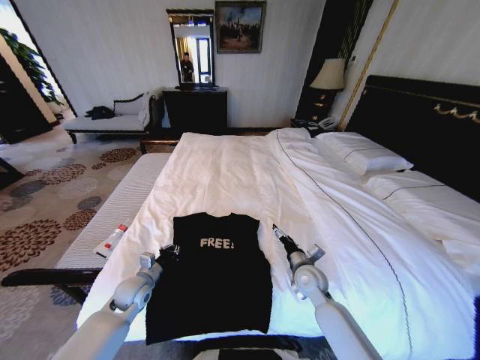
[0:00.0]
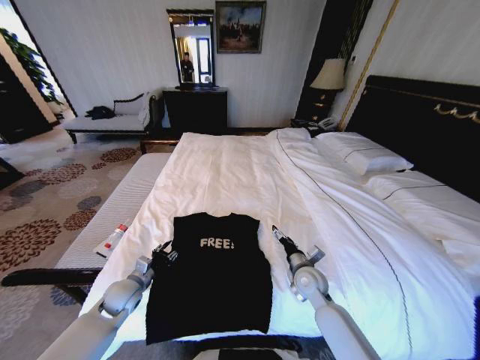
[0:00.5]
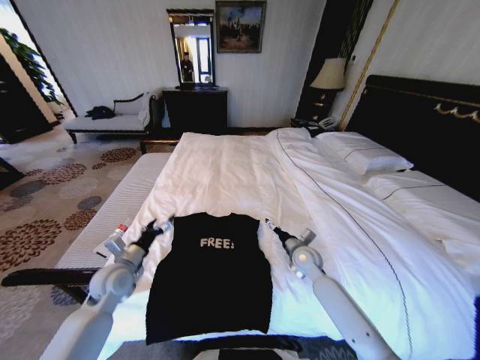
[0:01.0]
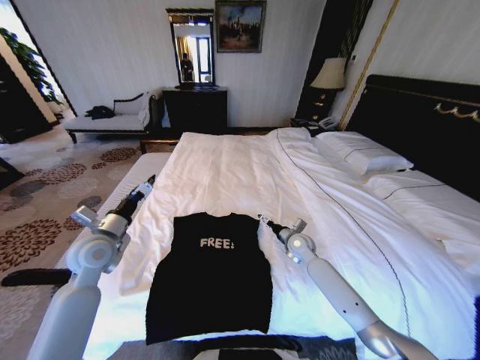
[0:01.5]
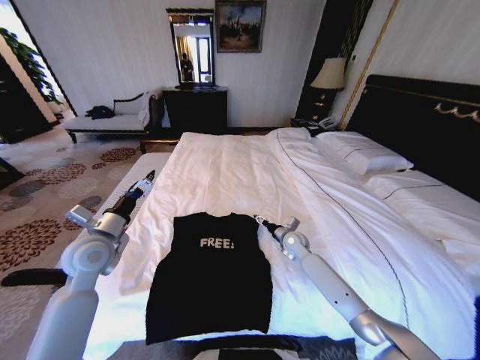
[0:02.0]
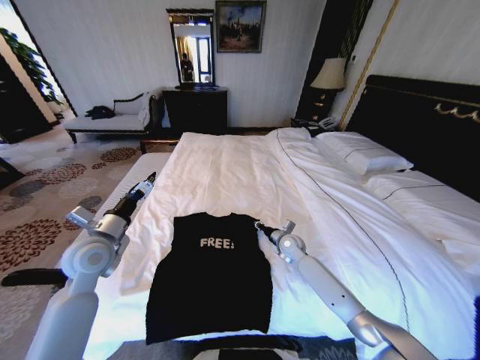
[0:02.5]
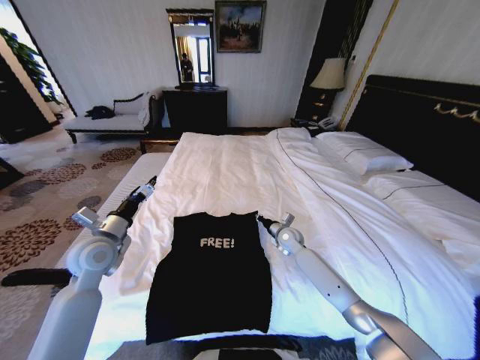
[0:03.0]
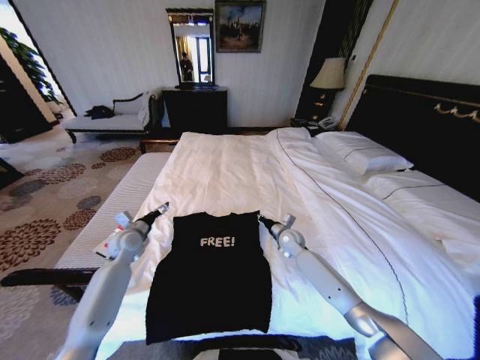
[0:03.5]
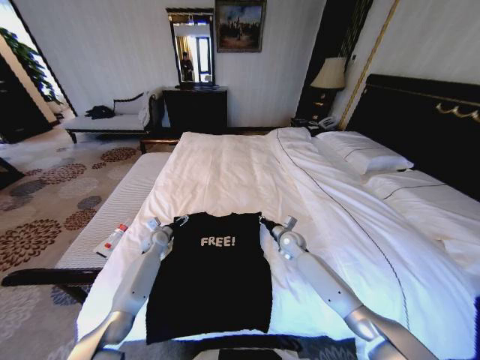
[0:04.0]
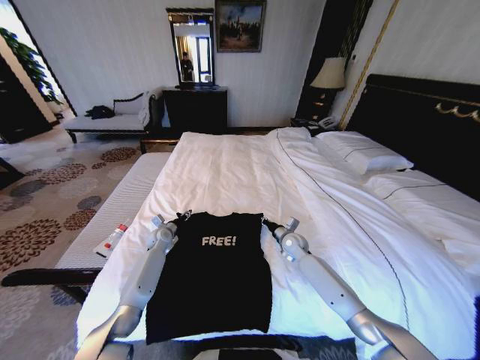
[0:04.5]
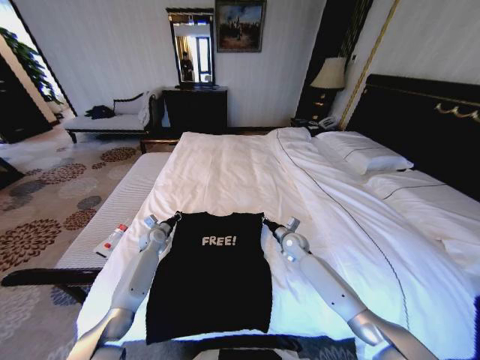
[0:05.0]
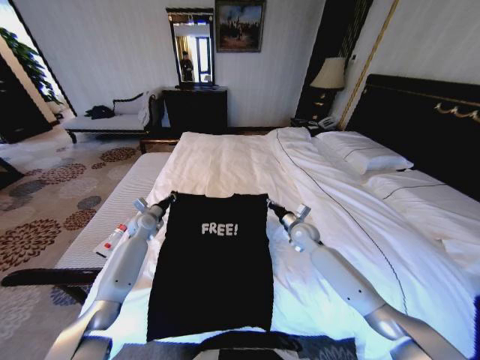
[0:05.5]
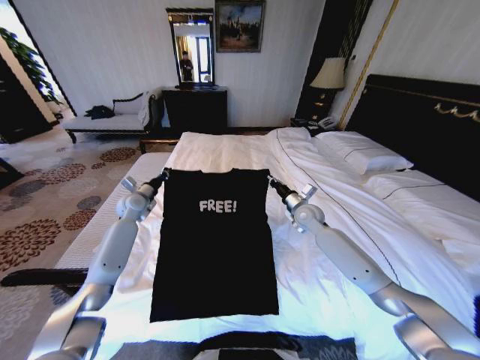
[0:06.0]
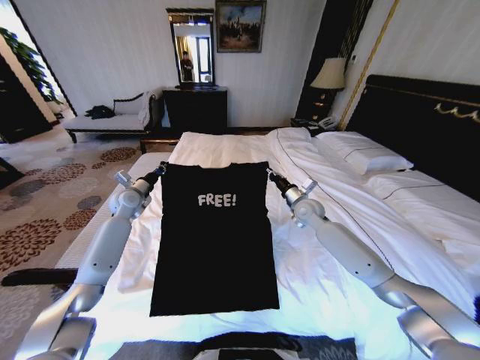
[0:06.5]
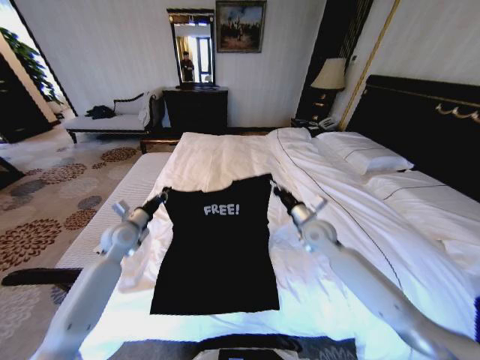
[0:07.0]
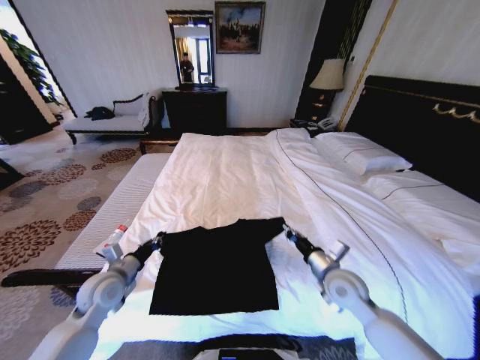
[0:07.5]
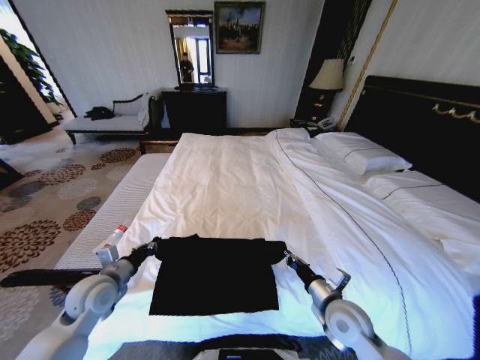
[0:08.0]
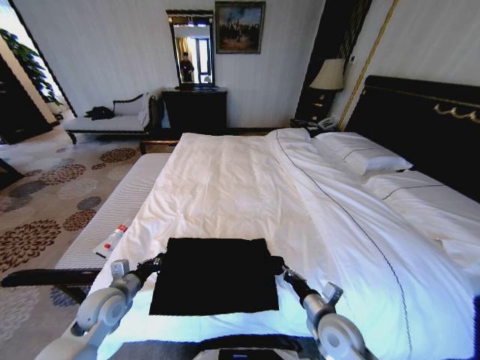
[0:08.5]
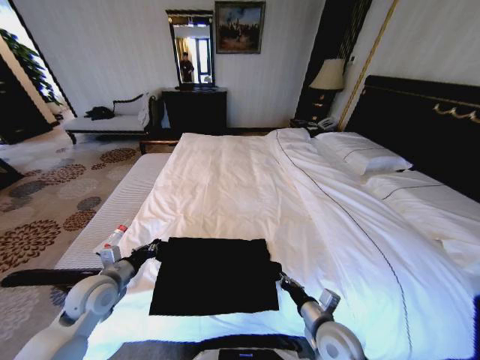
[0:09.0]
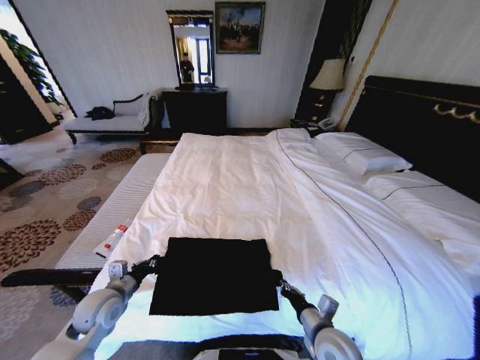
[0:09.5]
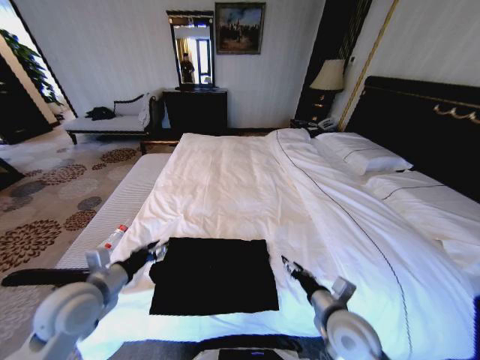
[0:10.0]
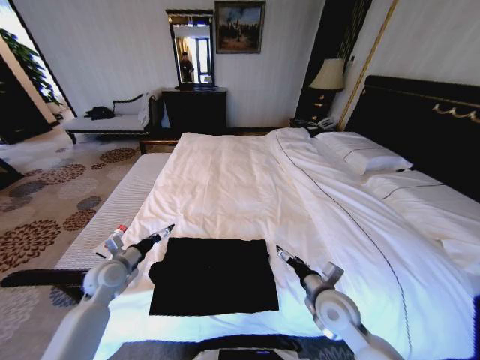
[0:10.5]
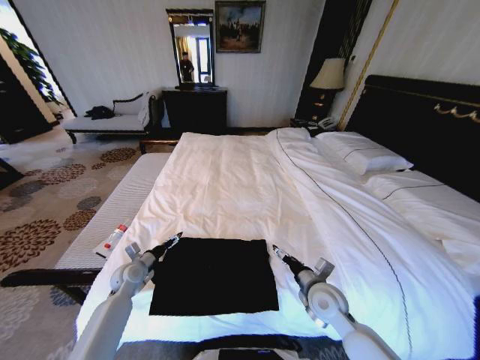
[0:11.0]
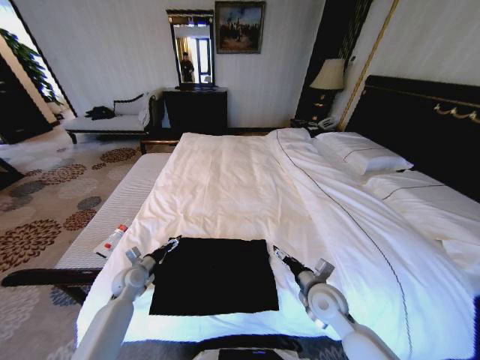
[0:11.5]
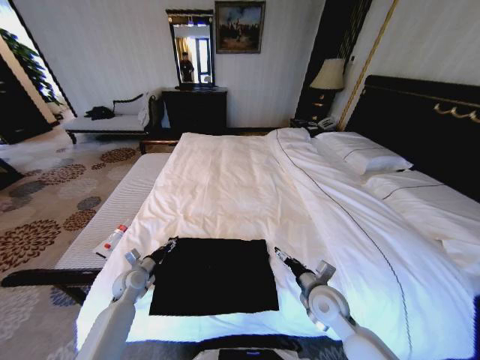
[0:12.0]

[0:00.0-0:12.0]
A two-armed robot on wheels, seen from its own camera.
Task of the whole recording: Fold the clothes on the bed.
0:00.0 to 0:02.0: The right gripper is displaced forward by approximately 15 cm. The left gripper is displaced upward by roughly 20 cm, and opens its fingers.
0:02.0 to 0:04.0: The left gripper shifts approximately 25 cm downward and forward, while the right gripper closes up.
0:04.0 to 0:06.0: The two grippers go approximately 15 cm upward. The left gripper closes.
0:06.0 to 0:08.0: Both grippers move backward, about 30 cm.
0:08.0 to 0:10.0: The right gripper opens up. The left gripper goes up and down, some 10 cm each way, reversing 3 times, and opens up.
0:10.0 to 0:12.0: The left gripper travels downward and forward by roughly 25 cm, and opens, then closes again, while the right gripper shifts some 5 cm forward, and opens its fingers.

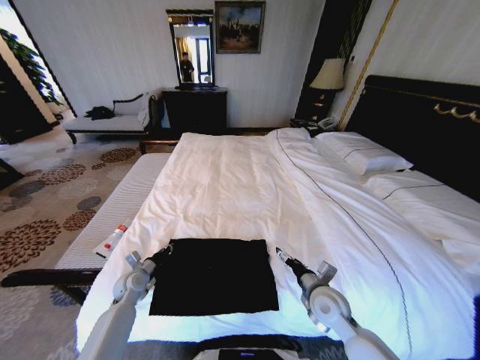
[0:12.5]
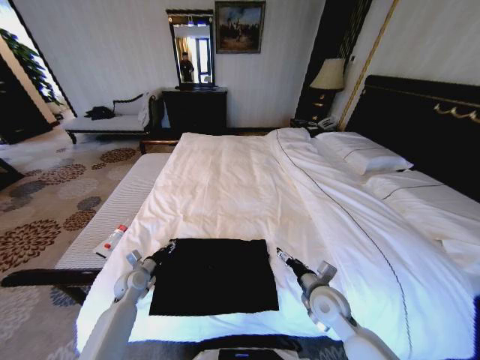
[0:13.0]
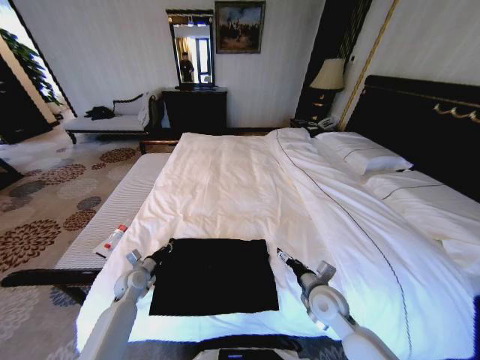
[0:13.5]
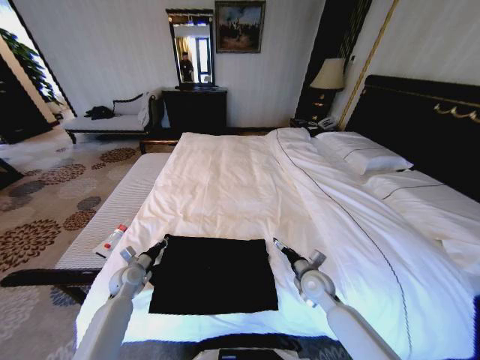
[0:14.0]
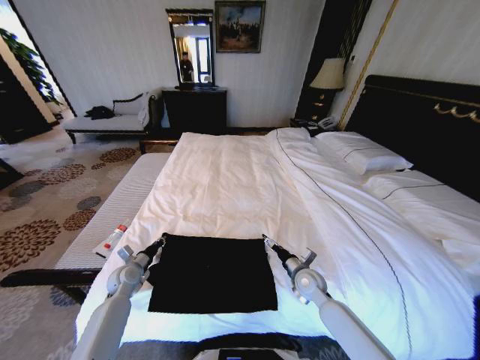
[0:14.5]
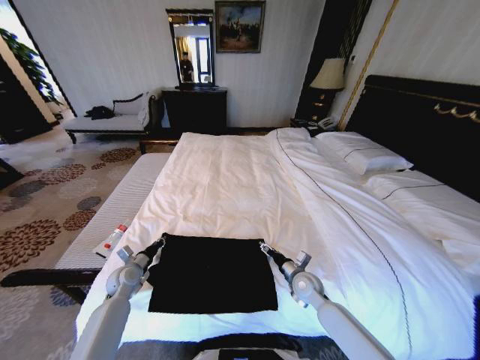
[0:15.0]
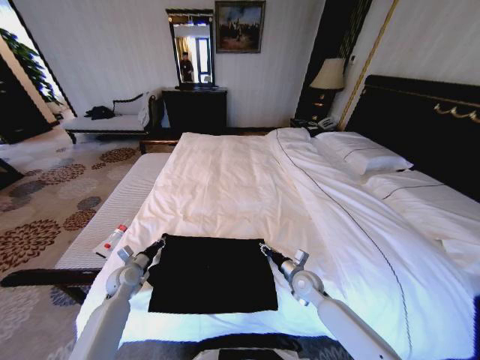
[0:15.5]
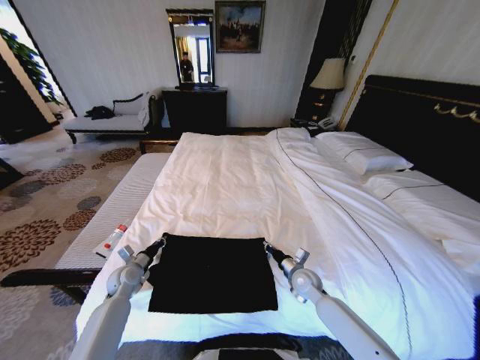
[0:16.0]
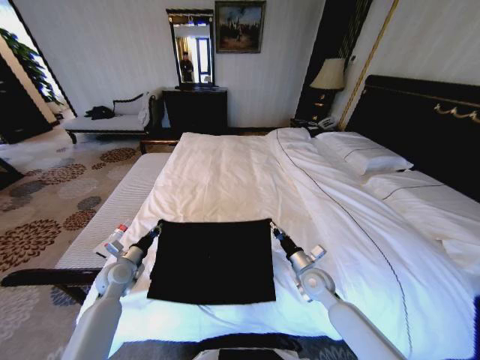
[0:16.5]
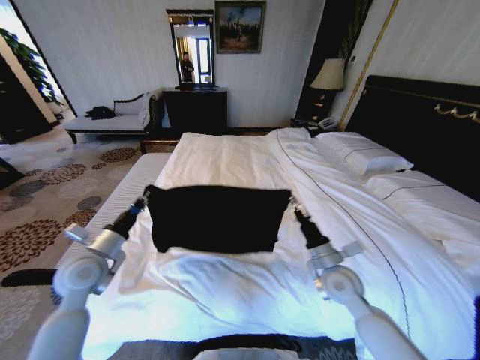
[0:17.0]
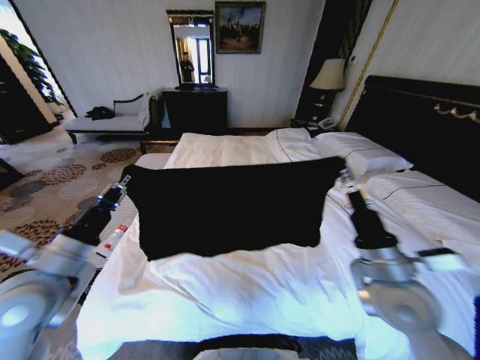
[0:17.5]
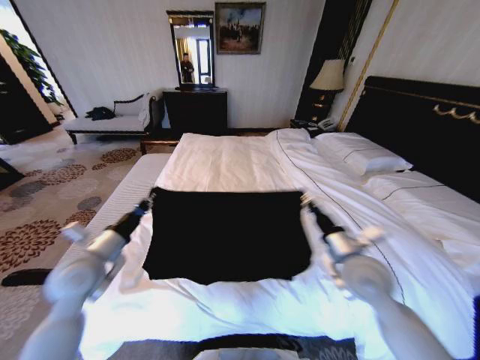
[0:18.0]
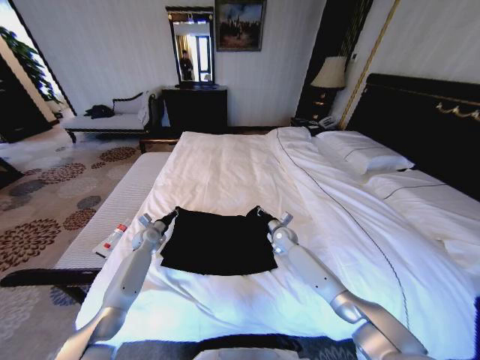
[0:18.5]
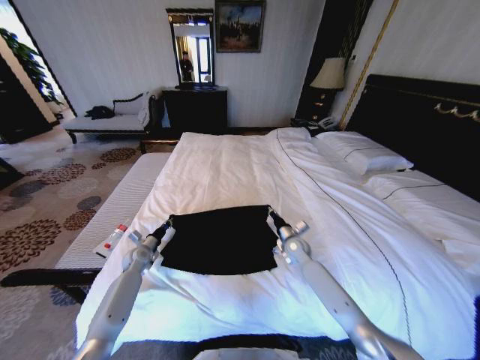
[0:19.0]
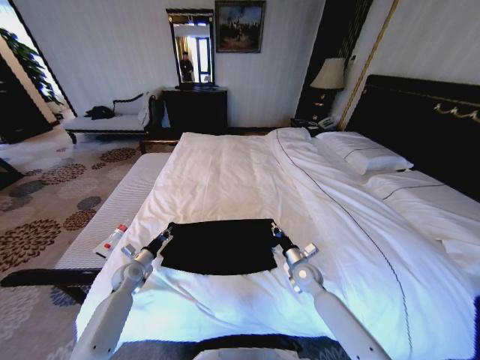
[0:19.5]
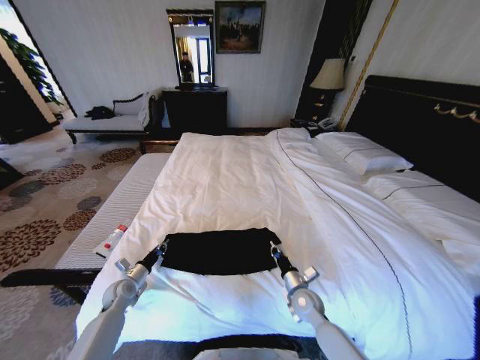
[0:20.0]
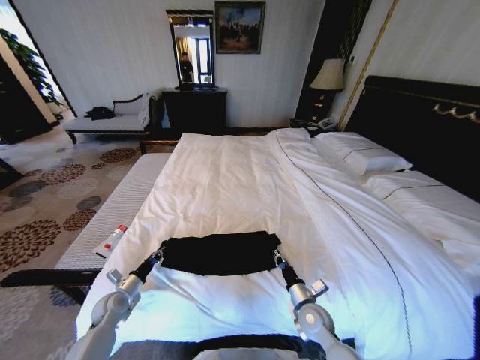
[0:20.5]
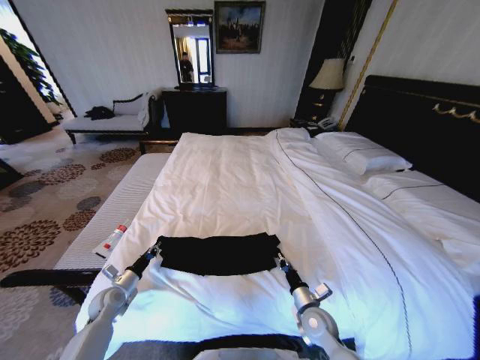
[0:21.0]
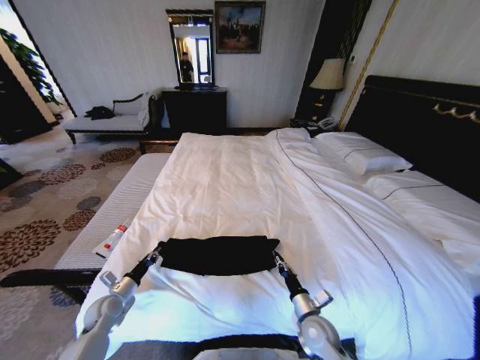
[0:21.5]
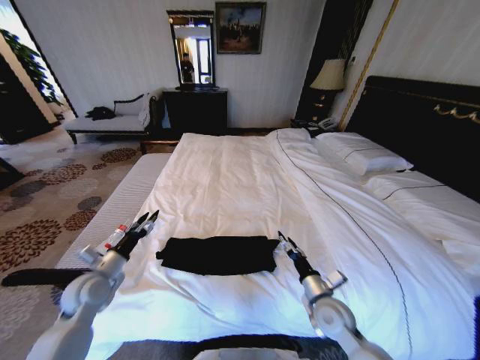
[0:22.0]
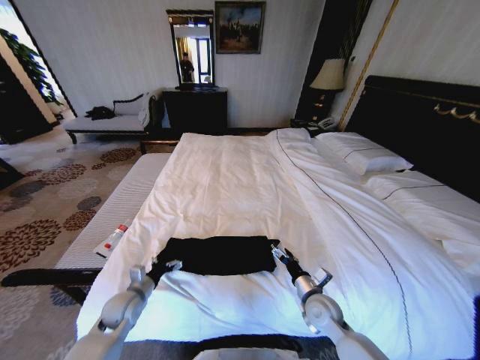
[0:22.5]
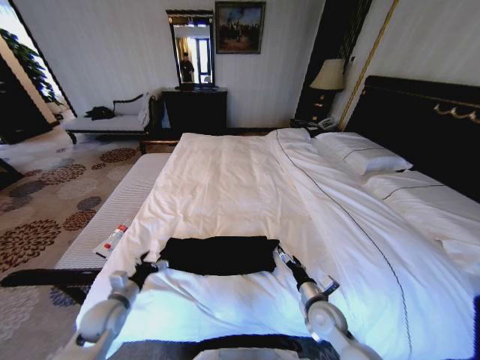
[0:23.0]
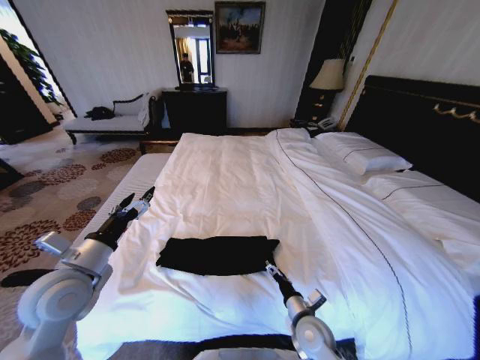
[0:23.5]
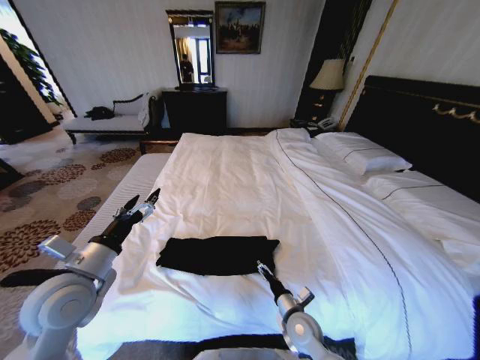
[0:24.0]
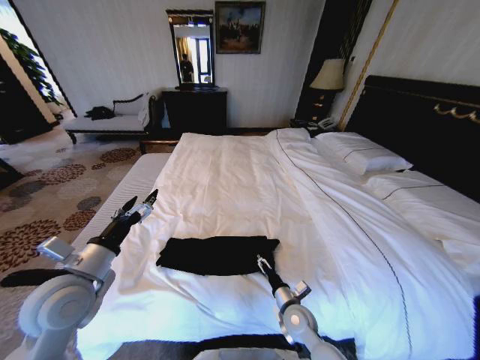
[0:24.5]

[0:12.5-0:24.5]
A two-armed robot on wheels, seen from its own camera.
Task of the whole recording: Fold the clothes on the bed.
0:12.5 to 0:14.5: The left gripper opens, then closes once more, while the right gripper is displaced forward and downward by some 10 cm.
0:14.5 to 0:16.5: The left gripper travels upward by roughly 5 cm. The right gripper closes.
0:16.5 to 0:18.5: Both grippers travel together forward, approximately 15 cm.
0:18.5 to 0:20.5: Both grippers travel together backward, approximately 25 cm.
0:20.5 to 0:22.5: The left gripper moves to the right and upward, about 10 cm, and opens up. Meanwhile the right gripper opens up.
0:22.5 to 0:24.5: The left gripper heads upward, covering about 20 cm. Meanwhile the right gripper shifts roughly 5 cm to the left.

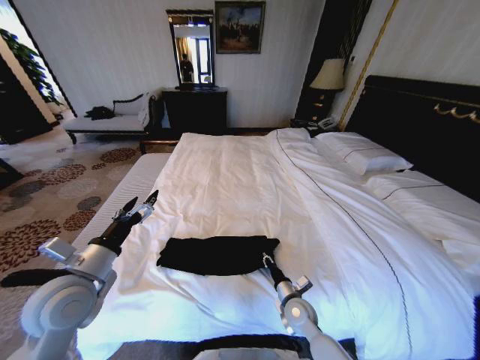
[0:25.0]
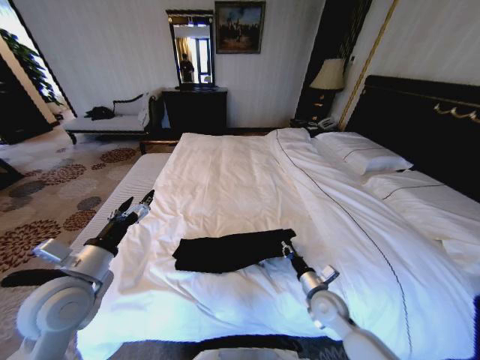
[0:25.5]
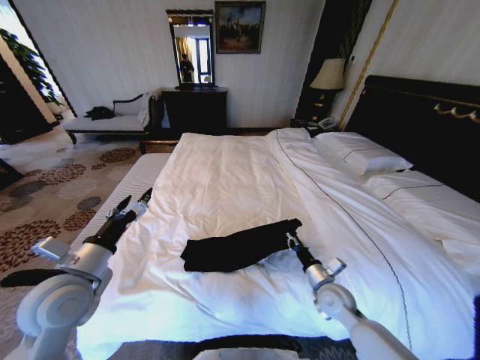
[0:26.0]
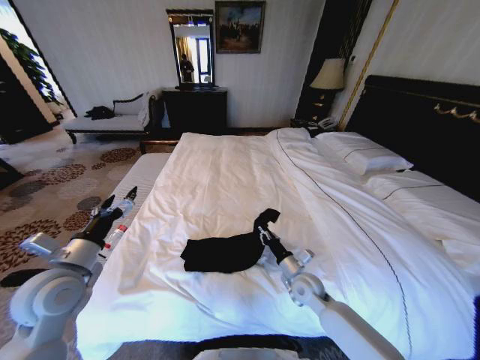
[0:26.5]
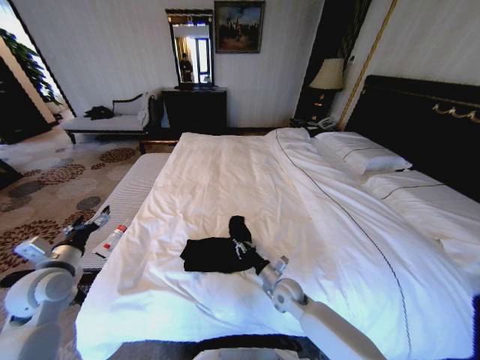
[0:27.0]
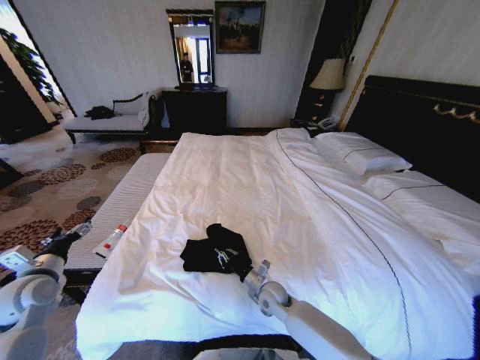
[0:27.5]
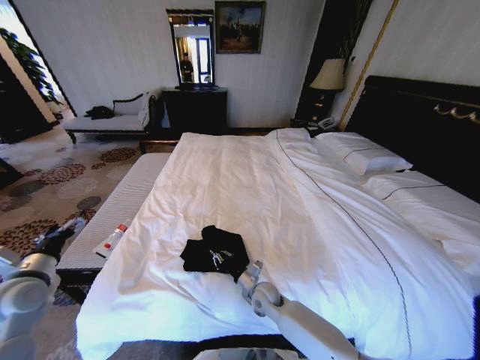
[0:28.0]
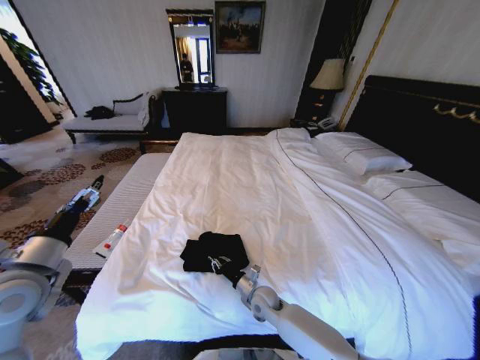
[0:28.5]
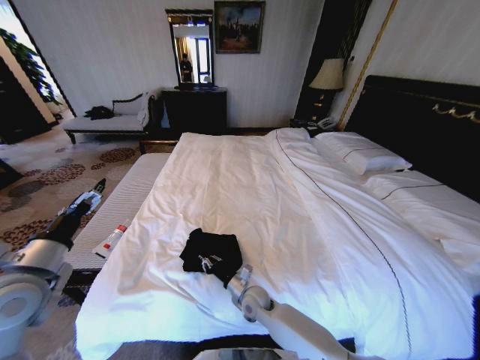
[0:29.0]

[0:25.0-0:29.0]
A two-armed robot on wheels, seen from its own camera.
Task of the whole recording: Fold the clothes on the bed.
0:25.0 to 0:27.0: The left gripper heads to the left and downward, covering about 10 cm, while the right gripper heads forward, covering about 5 cm, and moves roughly 10 cm to the right and comes back.
0:27.0 to 0:29.0: The left gripper goes roughly 10 cm upward; the right gripper moves to the left, approximately 10 cm.
